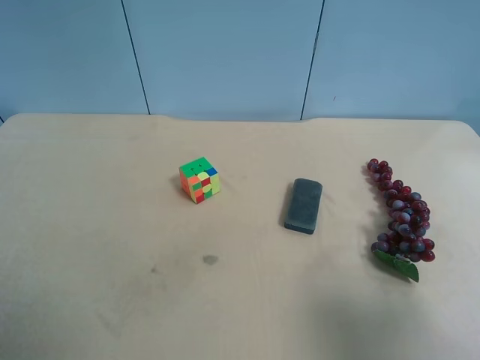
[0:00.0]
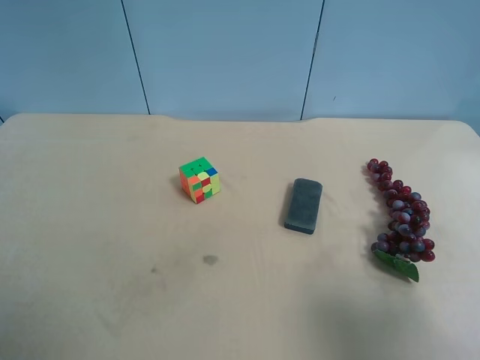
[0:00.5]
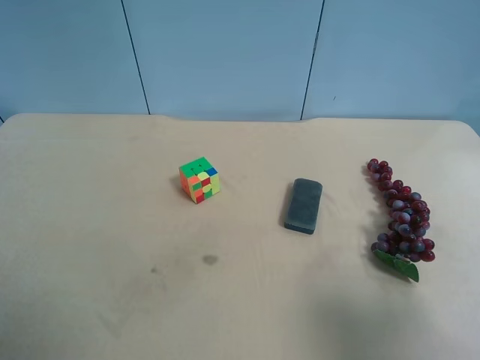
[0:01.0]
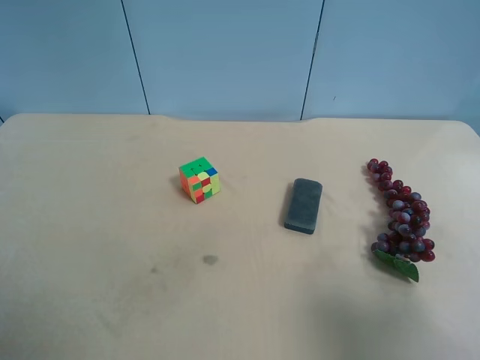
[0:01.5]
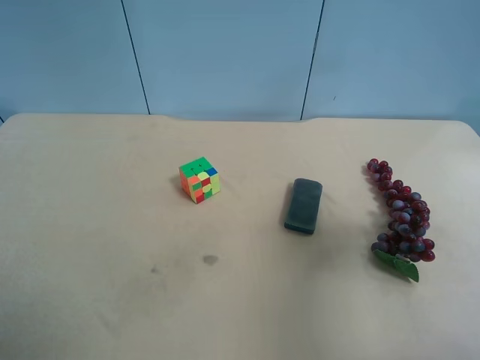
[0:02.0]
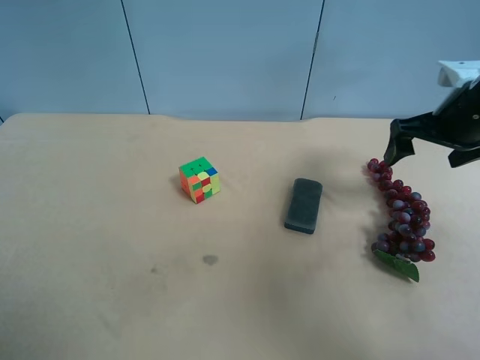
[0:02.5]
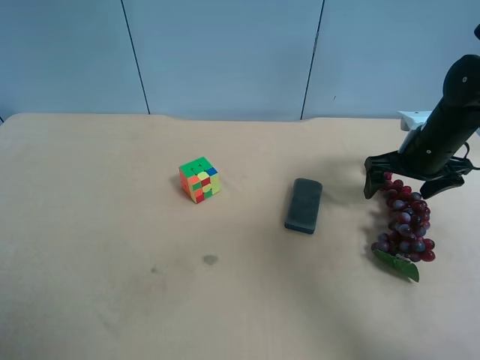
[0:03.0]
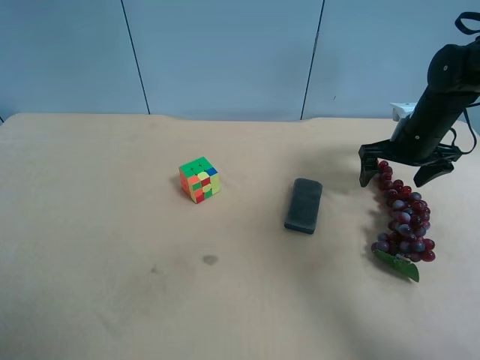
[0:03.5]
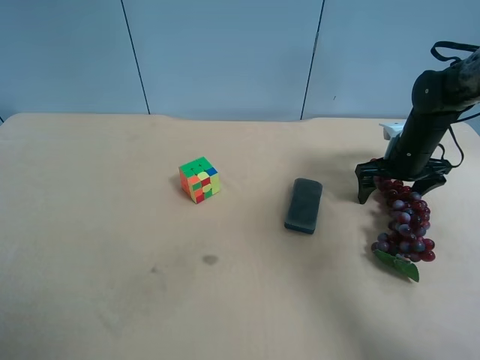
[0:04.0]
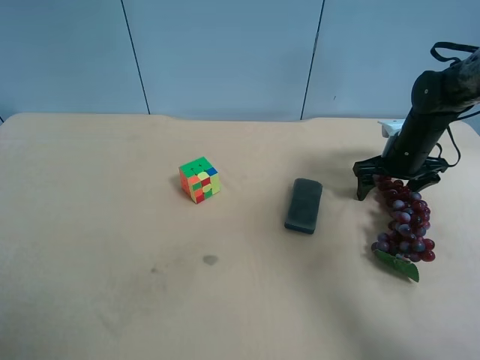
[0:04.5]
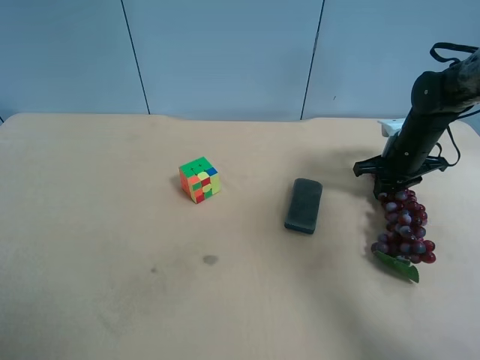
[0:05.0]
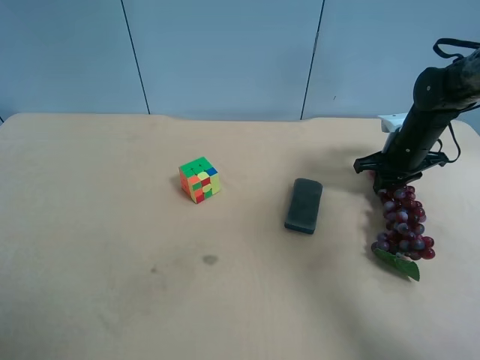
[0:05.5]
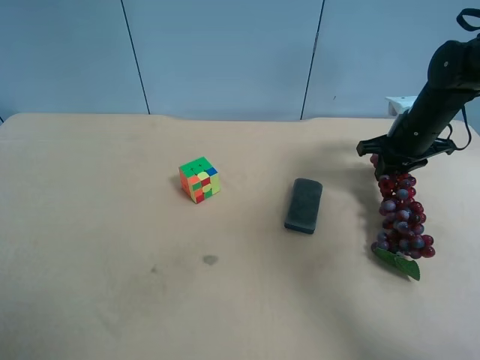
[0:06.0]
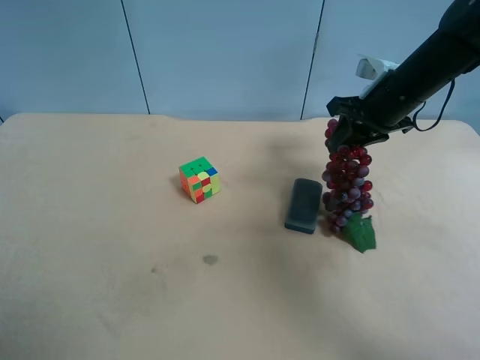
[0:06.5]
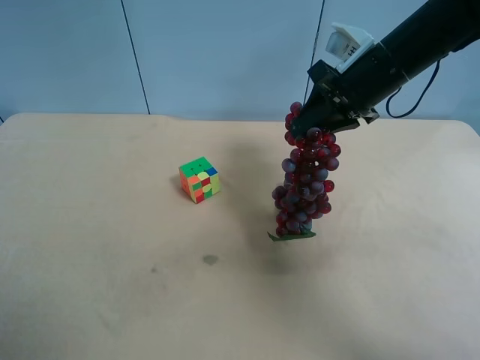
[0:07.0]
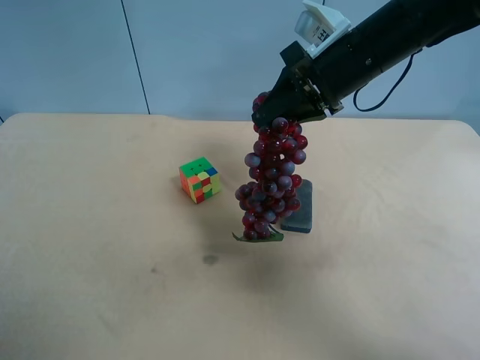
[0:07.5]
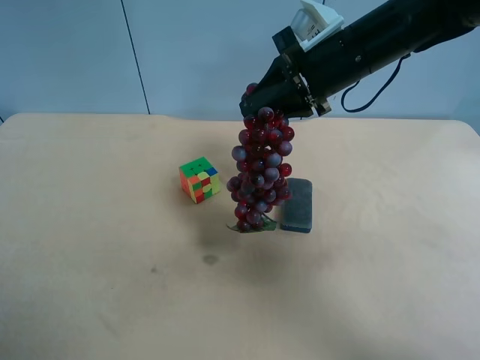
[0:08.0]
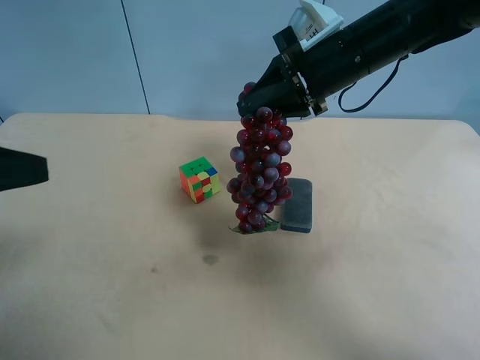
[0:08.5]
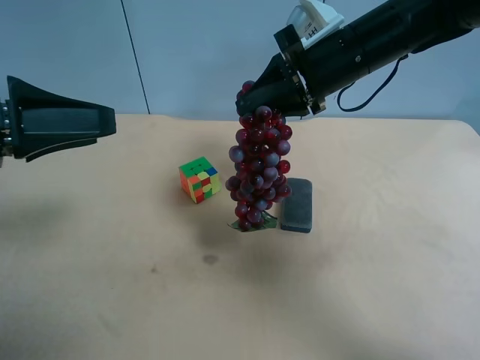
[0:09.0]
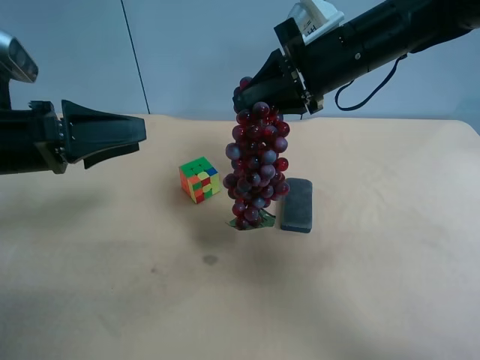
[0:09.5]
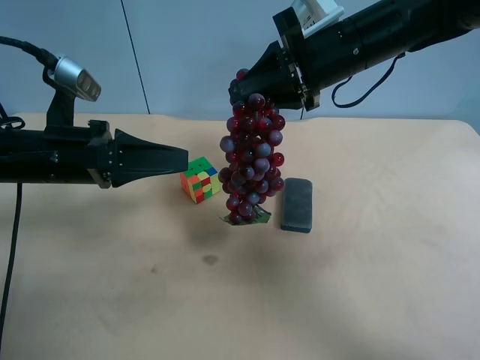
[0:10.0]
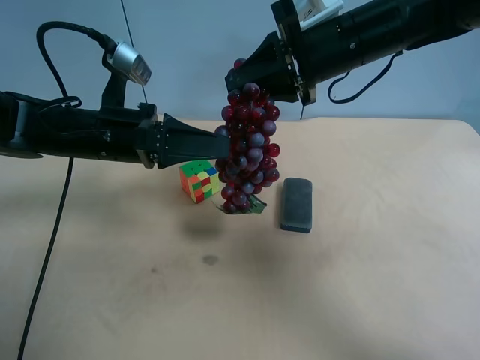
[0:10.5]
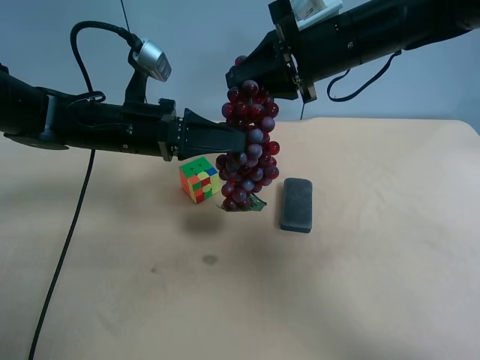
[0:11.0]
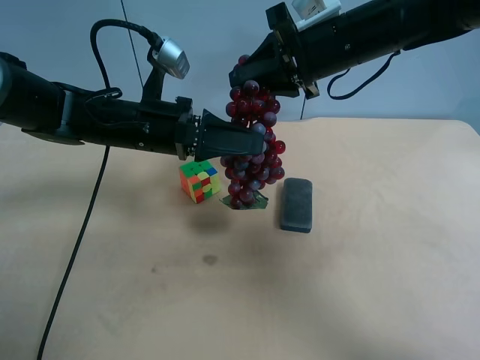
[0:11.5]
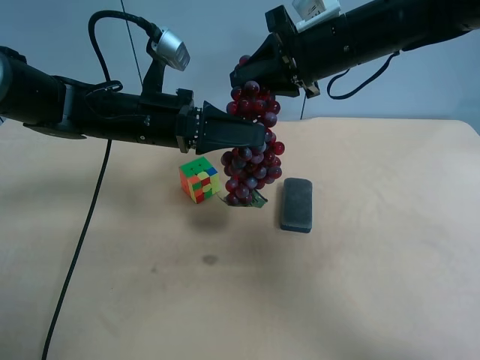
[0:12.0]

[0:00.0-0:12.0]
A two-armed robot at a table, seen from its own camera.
Task of the whole recording: use the right gripper to pick up the item and transfer it from the right gripper to the left gripper.
0:00.0 to 0:02.0: The right gripper moves forward, about 15 cm.
0:02.0 to 0:04.0: The right gripper heads forward and downward, covering some 30 cm.
0:04.0 to 0:06.0: The right gripper closes its fingers.
0:06.0 to 0:08.0: The right gripper shifts roughly 20 cm to the left and upward.
0:08.0 to 0:10.0: The left gripper goes approximately 25 cm forward, to the right and downward.
0:10.0 to 0:12.0: The left gripper travels to the right and forward by approximately 10 cm.

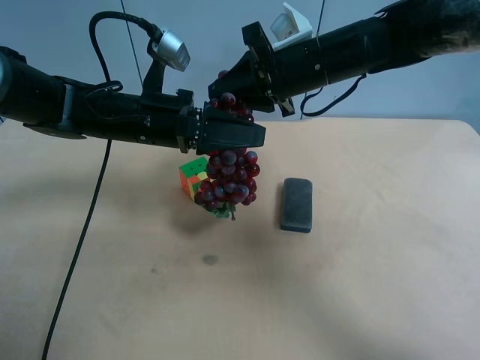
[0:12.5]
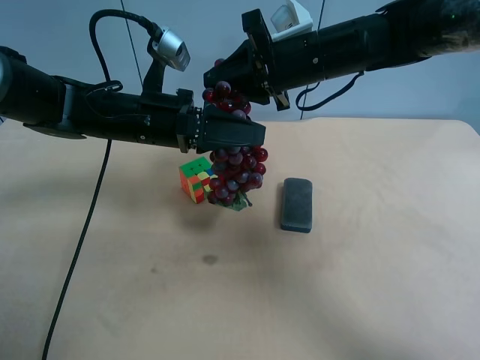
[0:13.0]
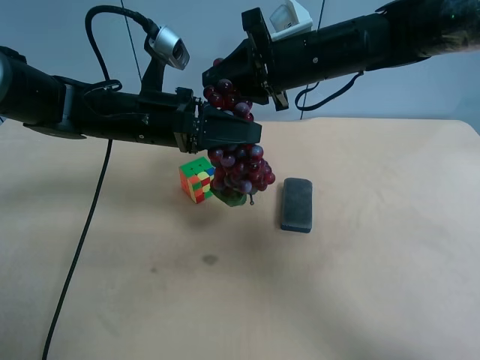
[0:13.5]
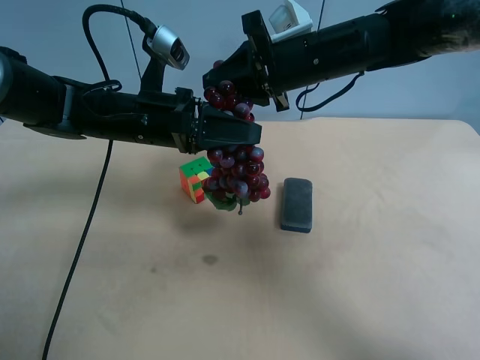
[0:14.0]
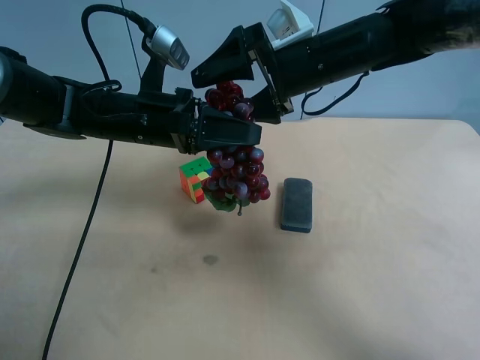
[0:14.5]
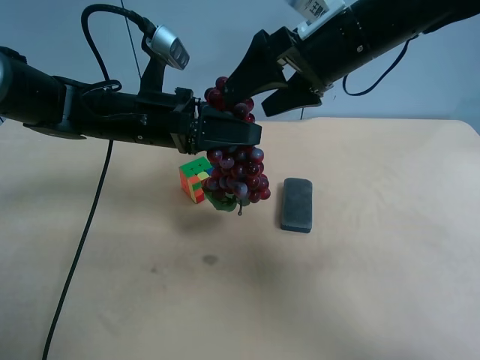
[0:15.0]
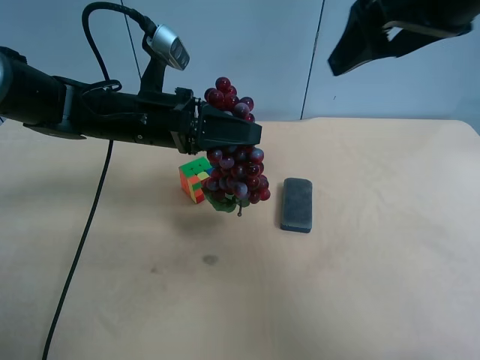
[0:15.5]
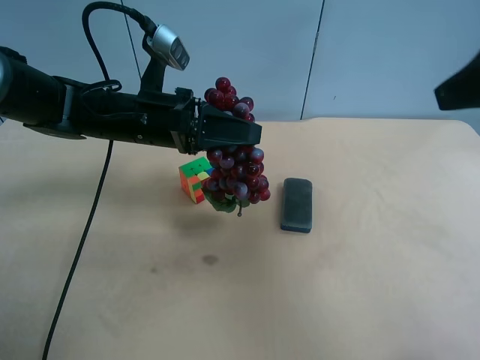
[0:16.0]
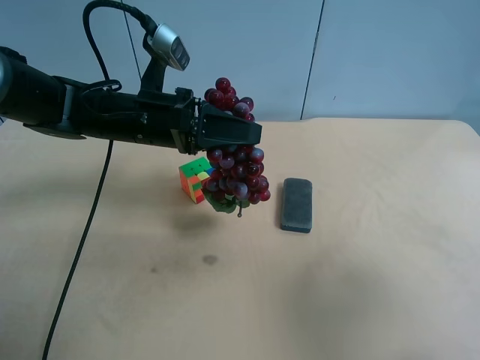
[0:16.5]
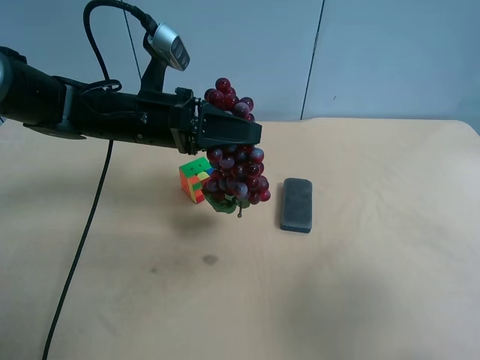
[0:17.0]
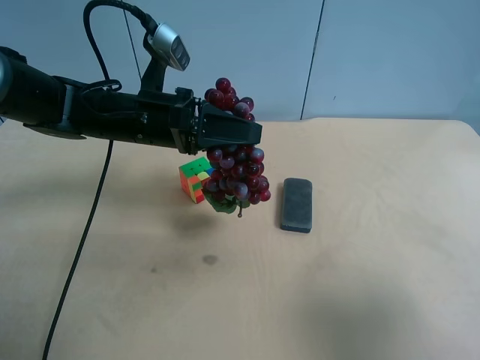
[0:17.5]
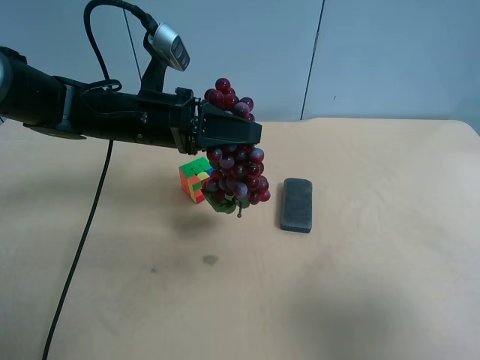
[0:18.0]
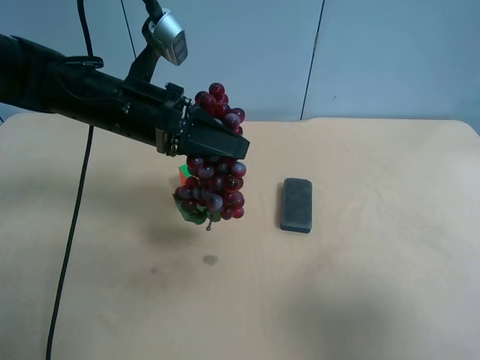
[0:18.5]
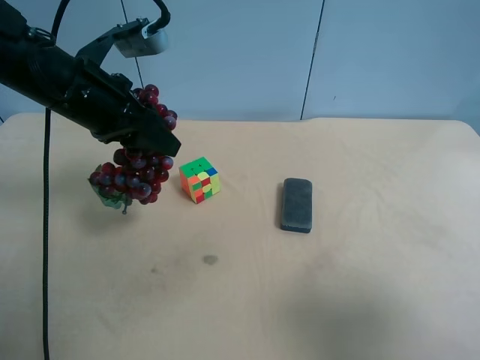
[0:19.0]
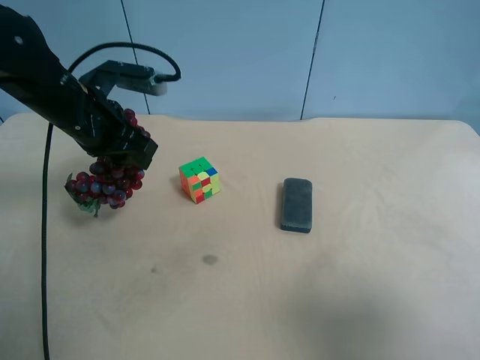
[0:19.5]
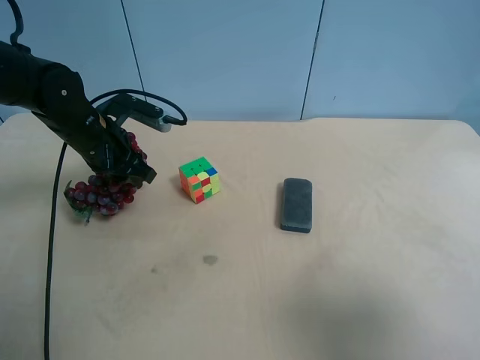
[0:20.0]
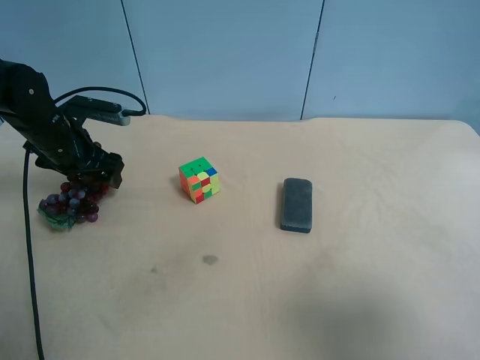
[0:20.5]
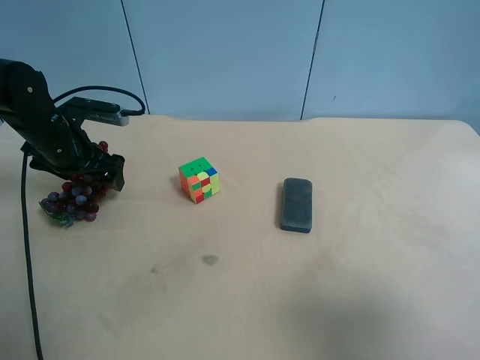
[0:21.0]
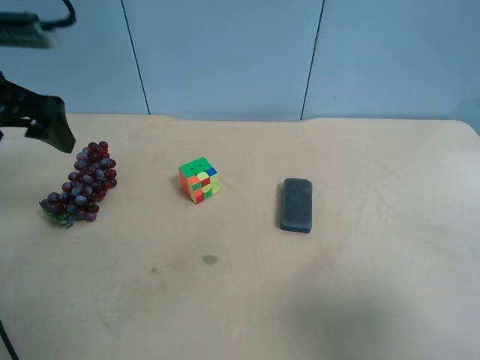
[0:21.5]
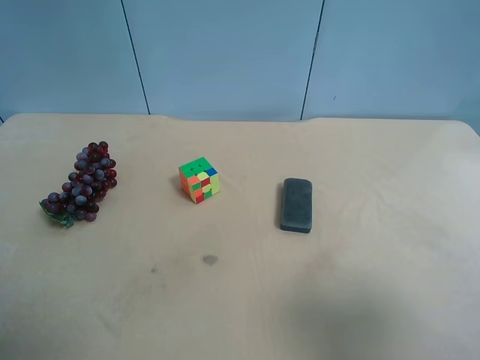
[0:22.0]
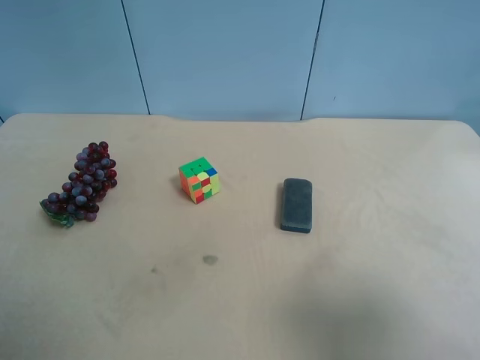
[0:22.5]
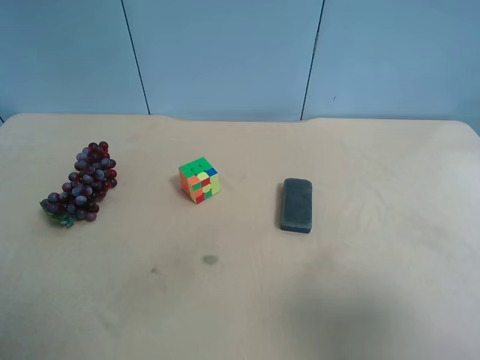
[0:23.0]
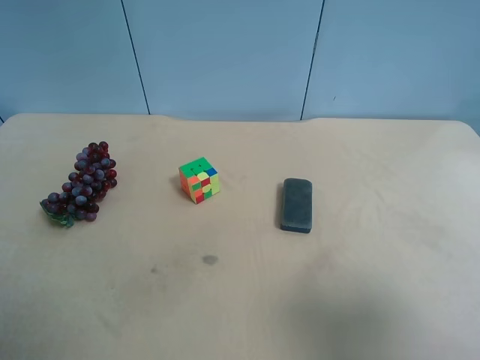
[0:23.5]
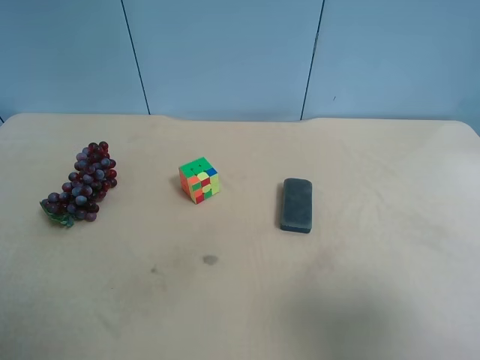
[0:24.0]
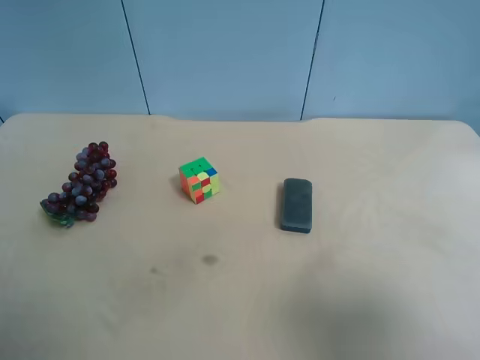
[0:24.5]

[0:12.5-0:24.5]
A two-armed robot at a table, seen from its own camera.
Task of the whole recording: use the right gripper to pick up the item and transfer it from the right gripper to the left gripper.
0:12.5 to 0:14.5: The left gripper closes. Meanwhile the right gripper opens up.
0:14.5 to 0:16.5: The right gripper is displaced backward and to the right by approximately 35 cm.
0:18.5 to 0:20.5: The left gripper shifts approximately 15 cm to the left, downward and forward, and opens up.
0:20.5 to 0:22.5: The left gripper moves backward and upward, some 40 cm.
